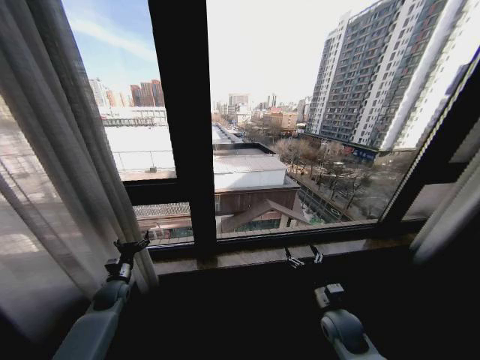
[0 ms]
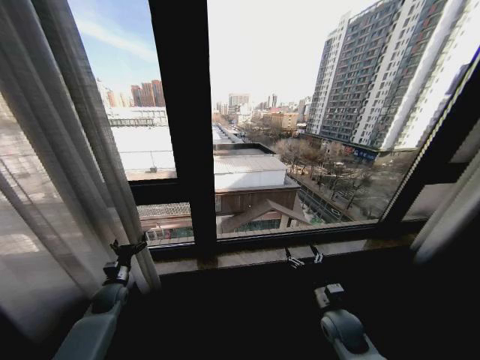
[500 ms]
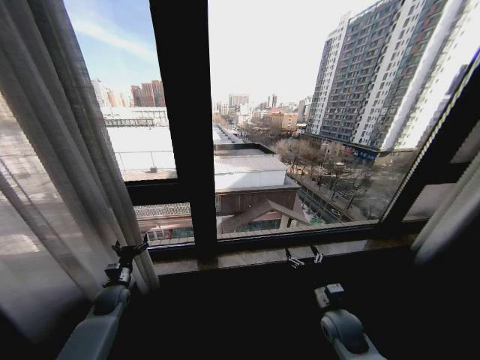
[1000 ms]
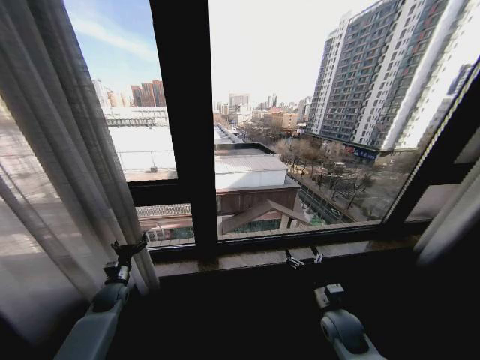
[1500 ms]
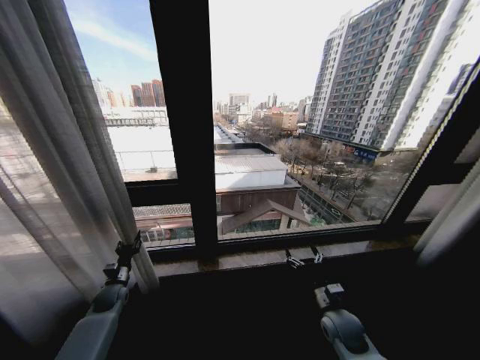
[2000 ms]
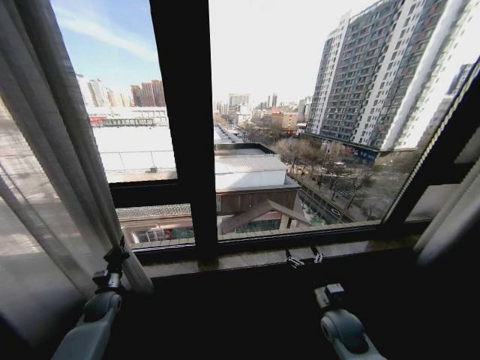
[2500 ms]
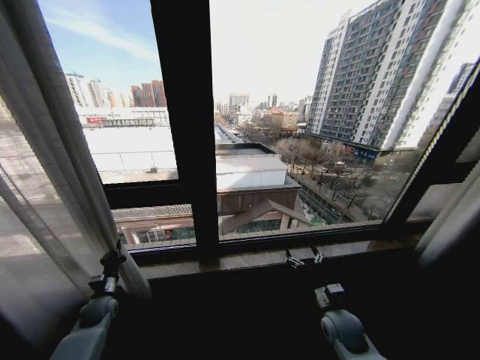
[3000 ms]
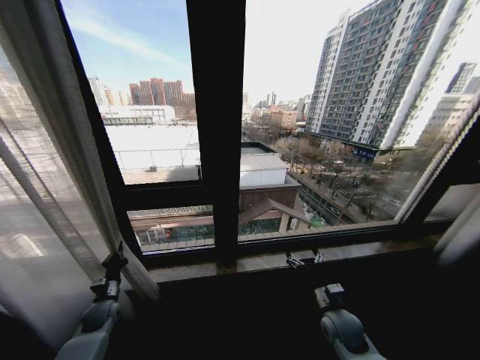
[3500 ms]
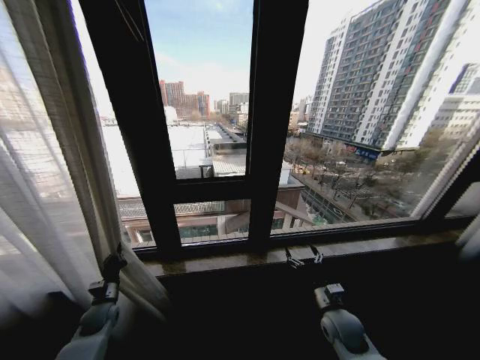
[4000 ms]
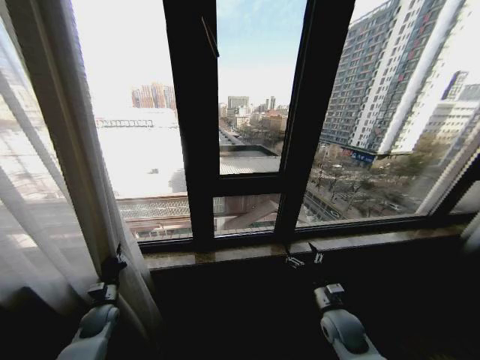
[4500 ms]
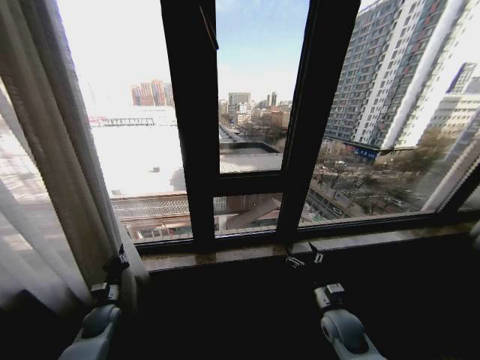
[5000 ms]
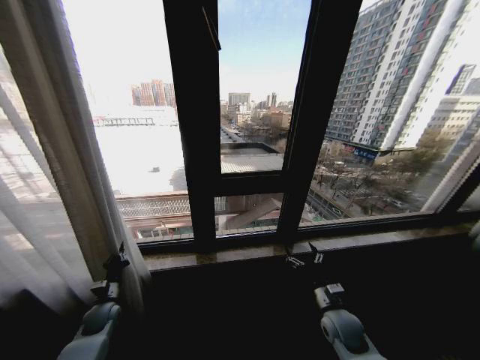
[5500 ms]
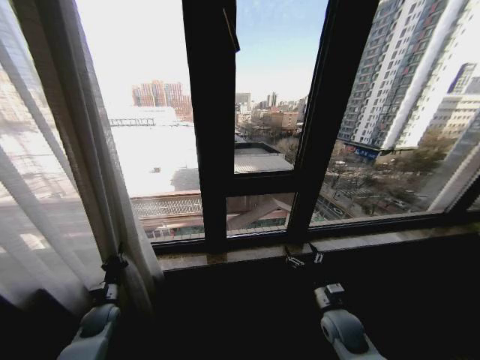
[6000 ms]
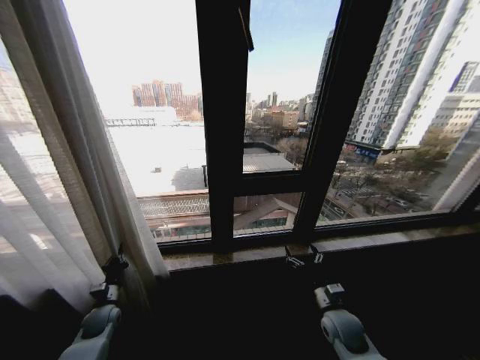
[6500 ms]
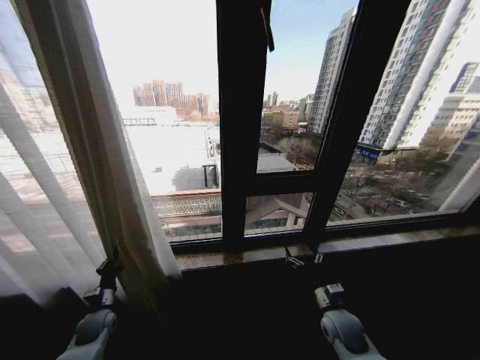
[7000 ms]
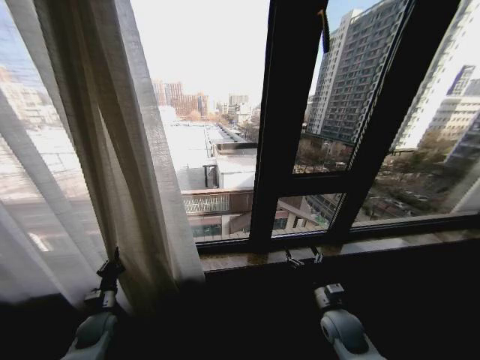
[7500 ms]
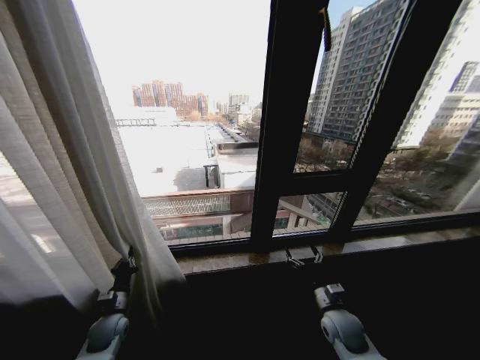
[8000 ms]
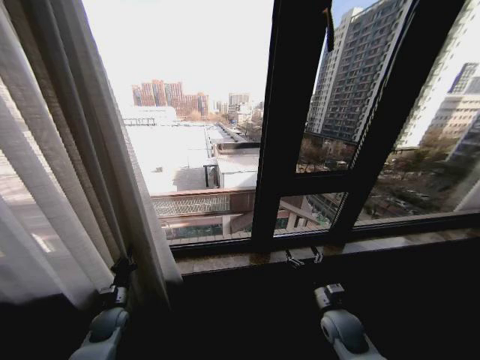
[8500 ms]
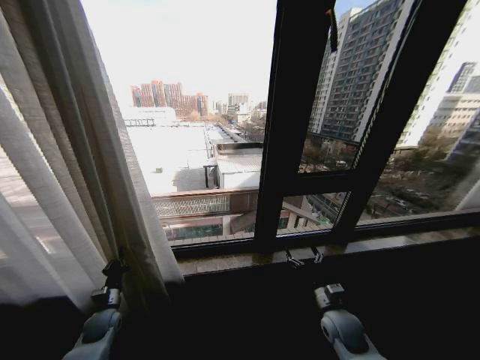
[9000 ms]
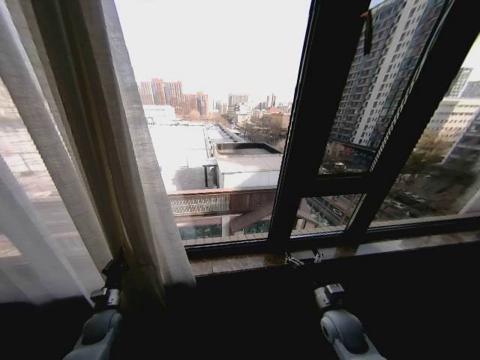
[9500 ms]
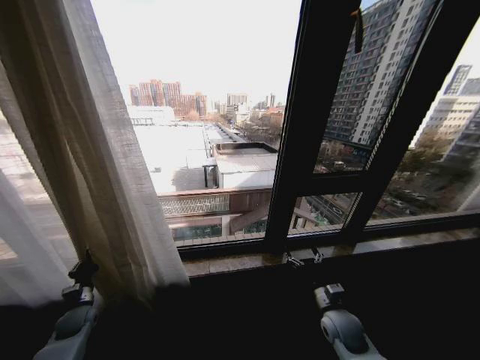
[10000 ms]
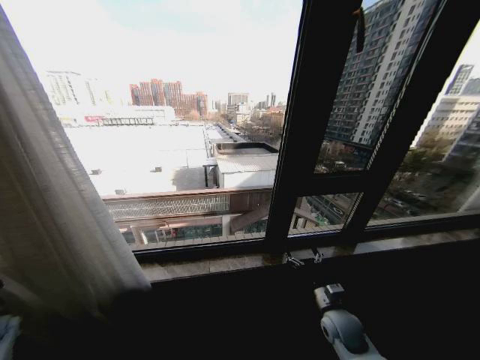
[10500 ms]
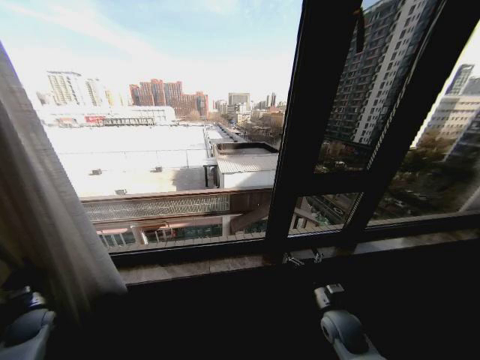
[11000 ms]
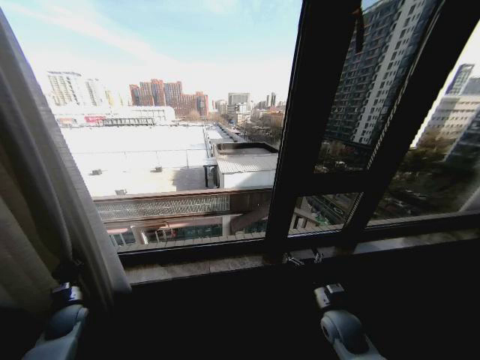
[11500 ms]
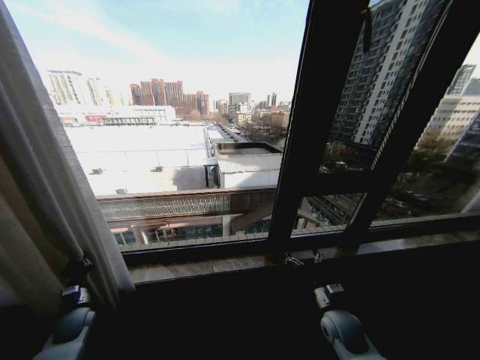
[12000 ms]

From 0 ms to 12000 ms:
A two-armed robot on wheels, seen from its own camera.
Task of the whole recording: Open the curtains by pulling them apart, changing their state from closed to fully open.
From 0 ms to 2000 ms: The left gripper closes.
From 2000 ms to 4000 ms: The left gripper shifts roughly 5 cm backward, and closes its fingers.
From 6000 ms to 8000 ms: The left gripper shifts by some 5 cm.
From 8000 ms to 10000 ms: The left gripper goes some 10 cm to the left.
From 10000 ms to 12000 ms: The left gripper travels to the left and back again, about 15 cm each way.

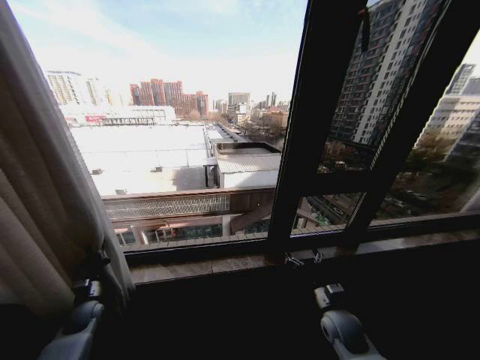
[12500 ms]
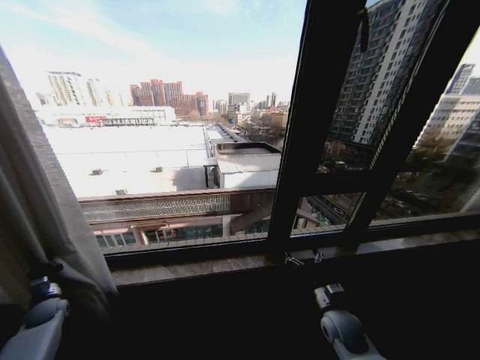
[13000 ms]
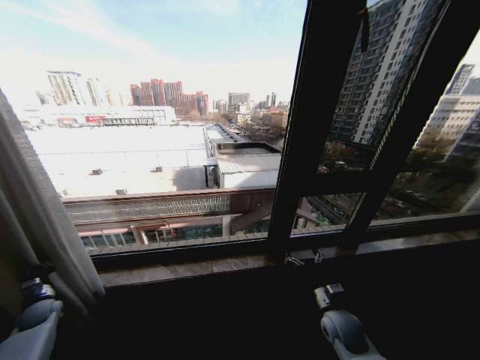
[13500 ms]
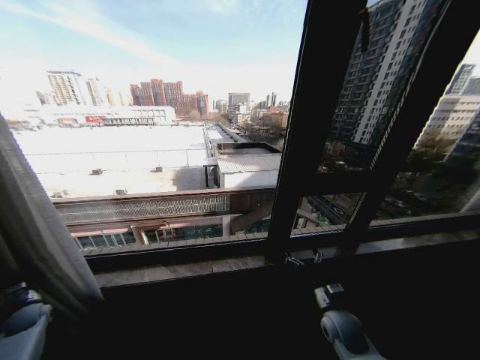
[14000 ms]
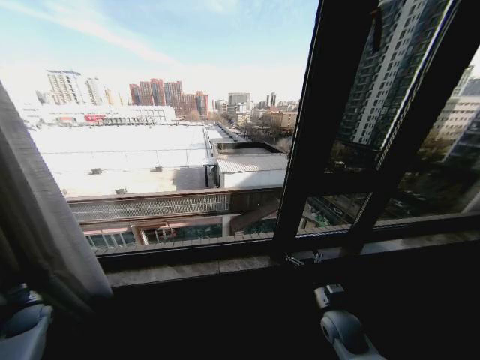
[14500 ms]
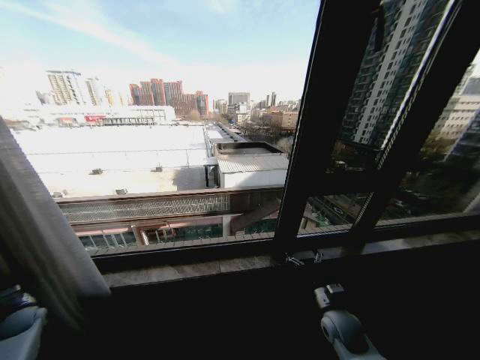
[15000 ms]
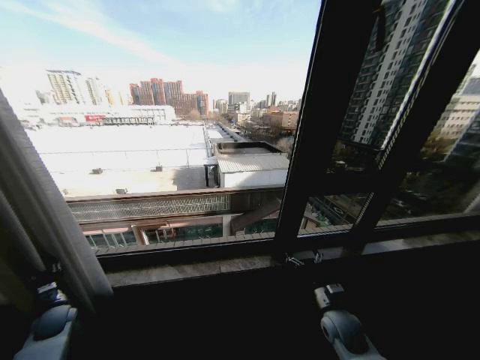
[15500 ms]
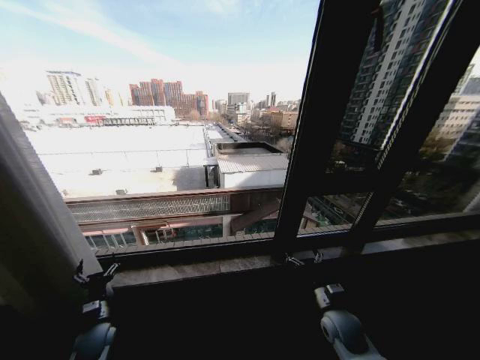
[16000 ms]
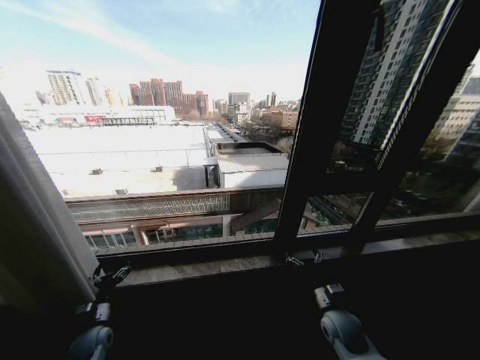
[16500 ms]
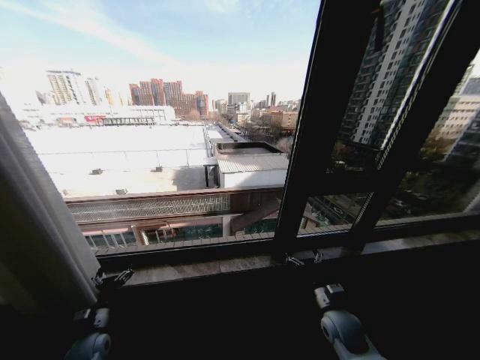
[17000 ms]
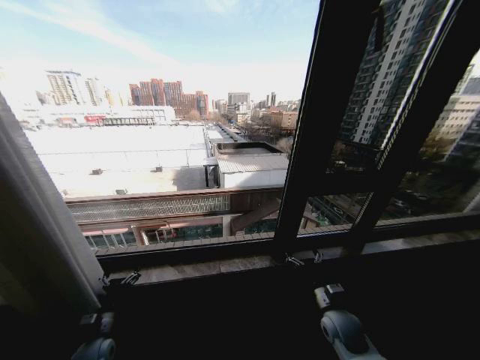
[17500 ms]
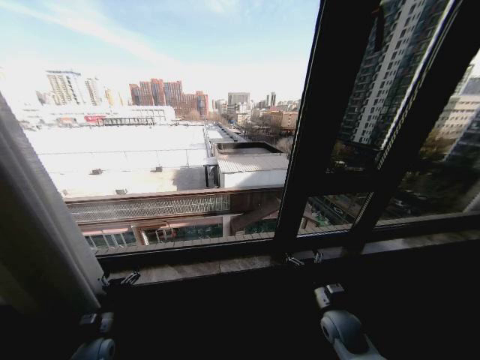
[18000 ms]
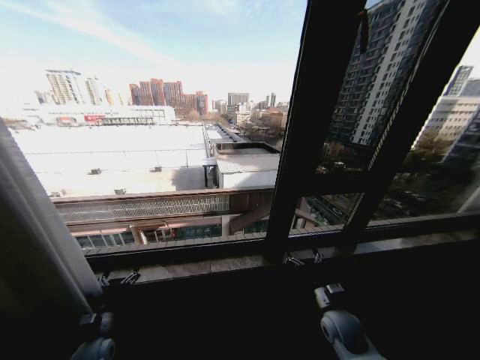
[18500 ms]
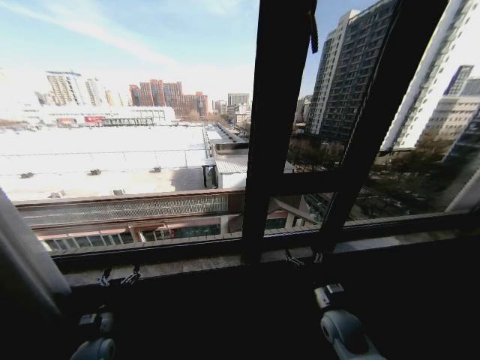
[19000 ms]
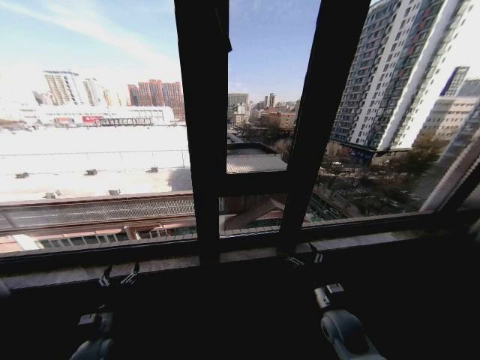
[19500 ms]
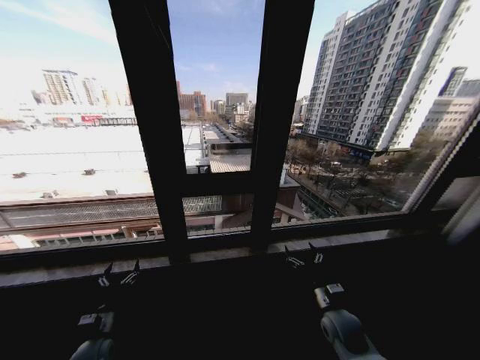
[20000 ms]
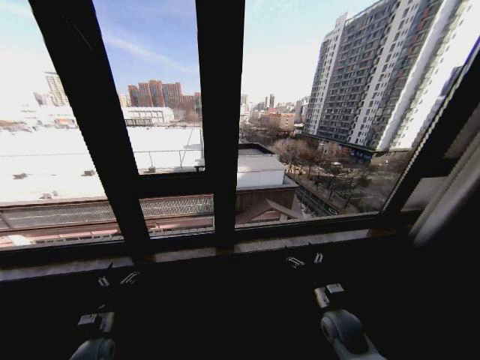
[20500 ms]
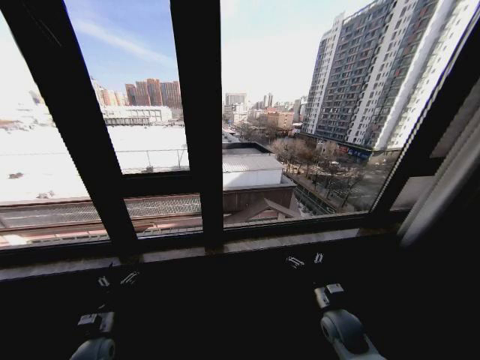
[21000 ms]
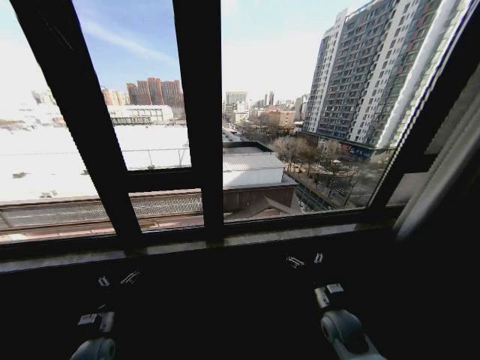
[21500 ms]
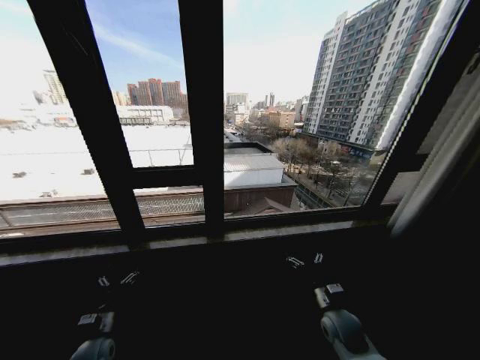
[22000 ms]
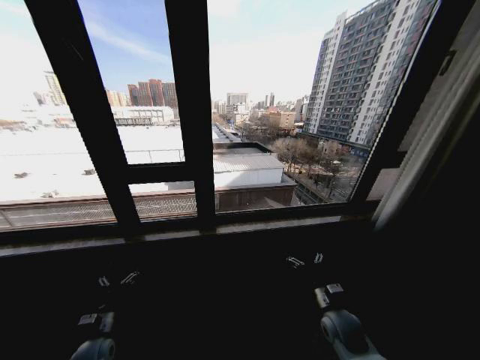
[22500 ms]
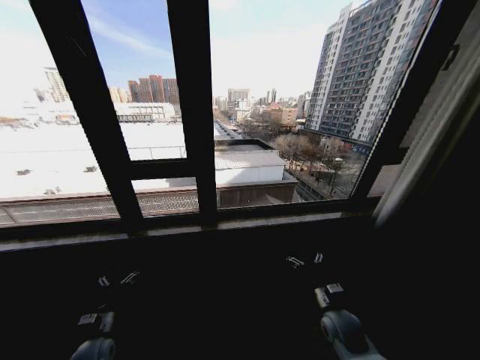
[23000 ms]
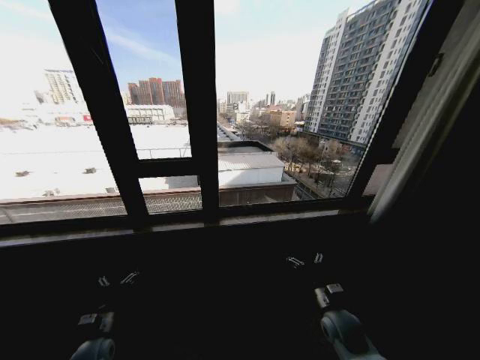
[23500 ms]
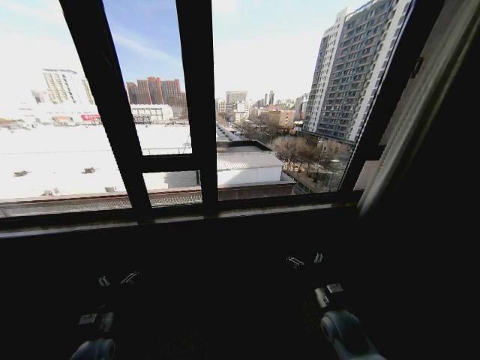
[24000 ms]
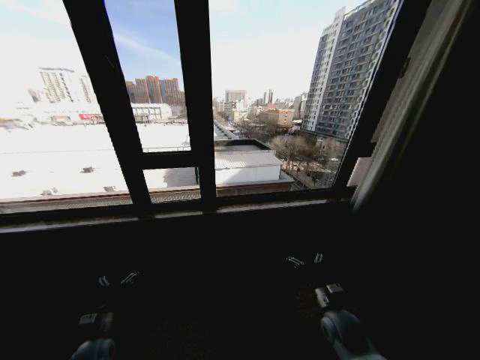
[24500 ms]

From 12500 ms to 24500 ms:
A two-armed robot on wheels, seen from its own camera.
Task of the whole recording: Open the curtains by pulling them apart, changing their state from closed to fully open.
From 12500 ms to 14500 ms: The left gripper heads to the left, covering approximately 15 cm.
From 14500 ms to 16500 ms: The left gripper travels to the right by approximately 20 cm, and opens up.
From 16500 ms to 18500 ms: The grippers move only a little.
